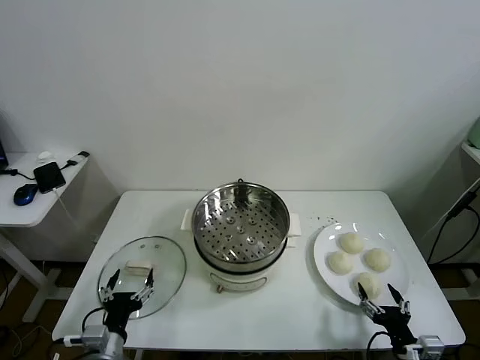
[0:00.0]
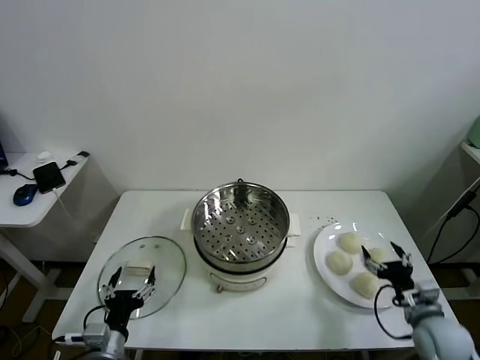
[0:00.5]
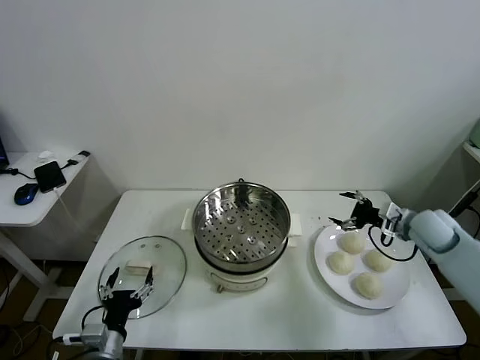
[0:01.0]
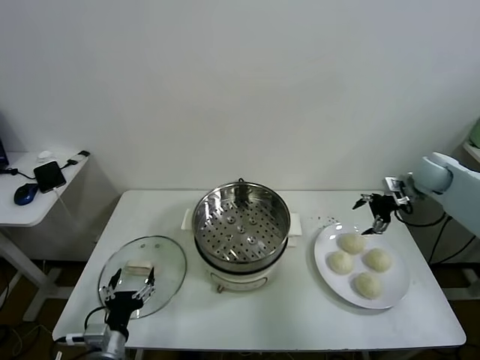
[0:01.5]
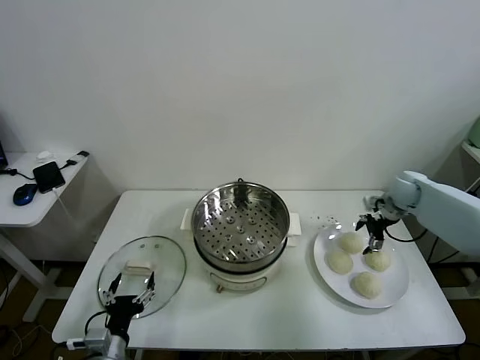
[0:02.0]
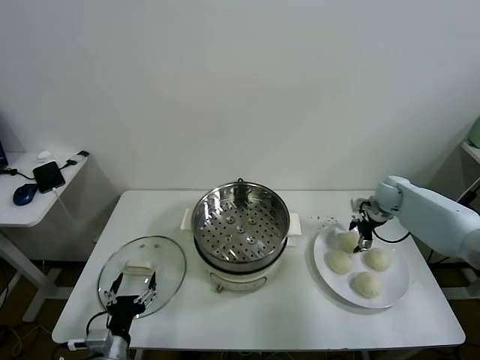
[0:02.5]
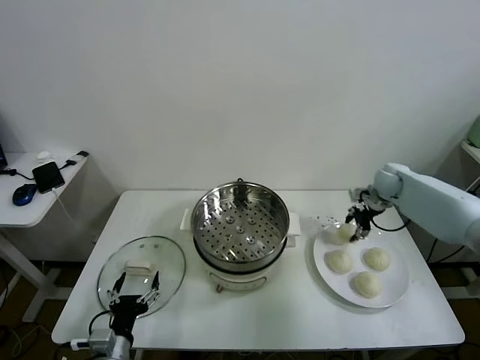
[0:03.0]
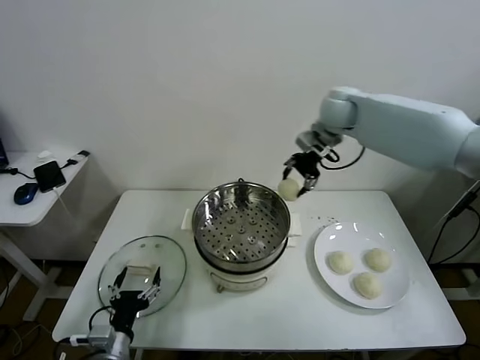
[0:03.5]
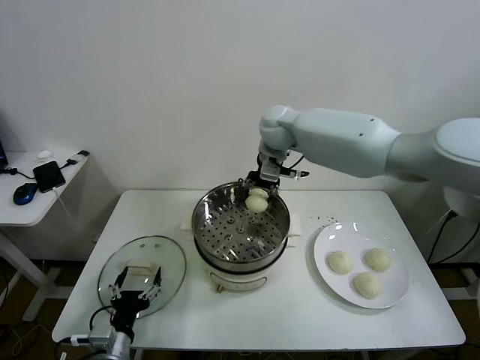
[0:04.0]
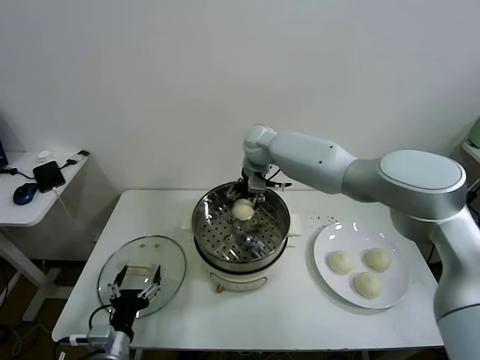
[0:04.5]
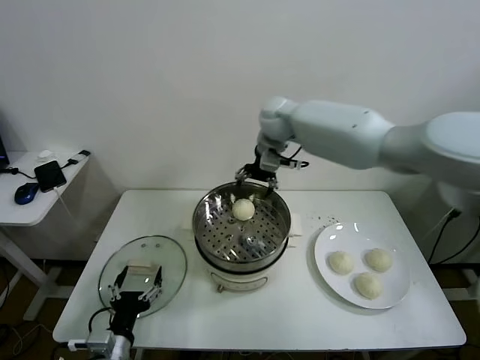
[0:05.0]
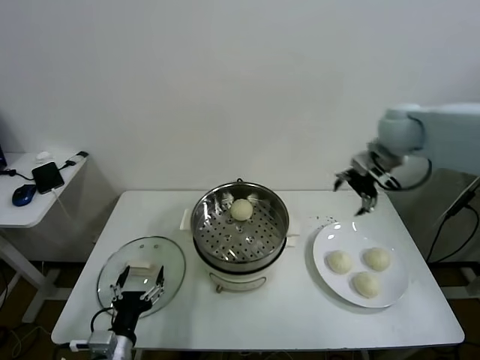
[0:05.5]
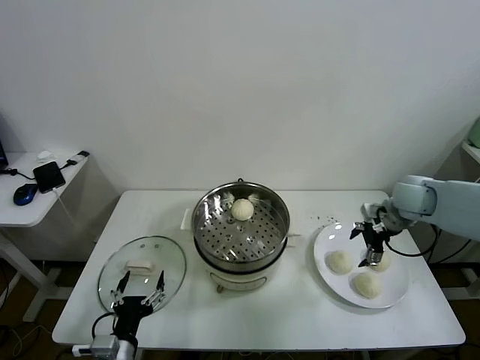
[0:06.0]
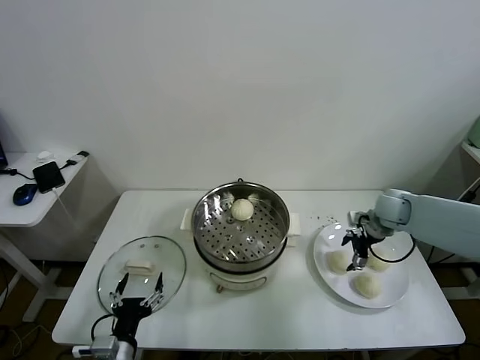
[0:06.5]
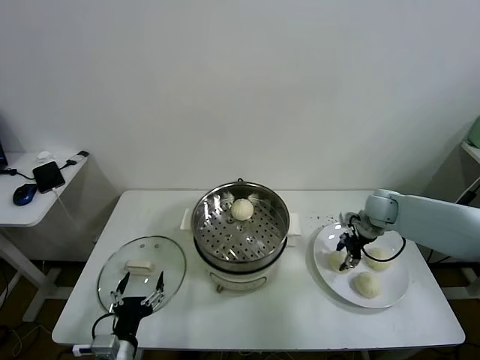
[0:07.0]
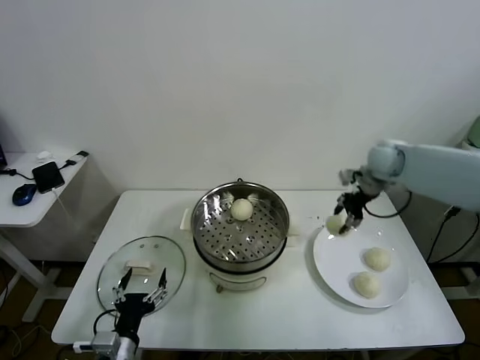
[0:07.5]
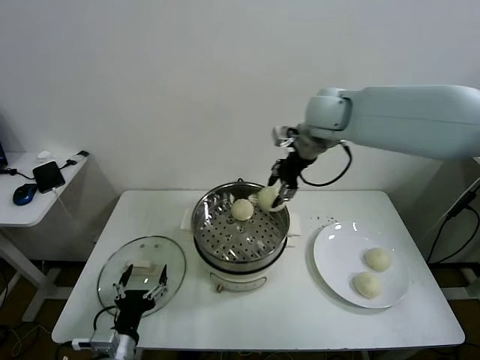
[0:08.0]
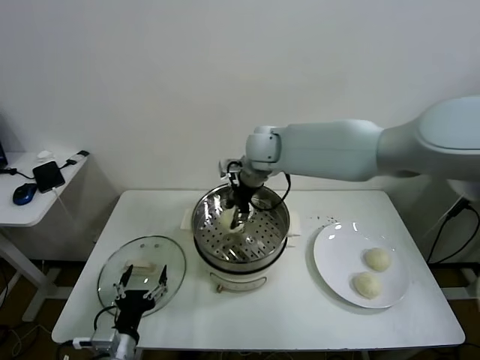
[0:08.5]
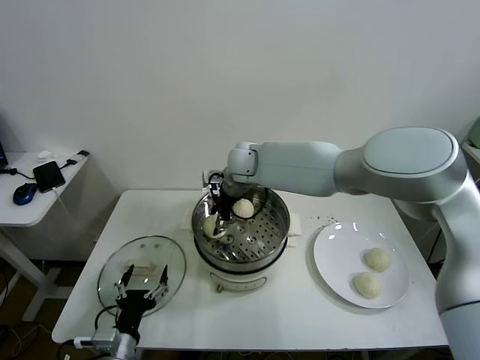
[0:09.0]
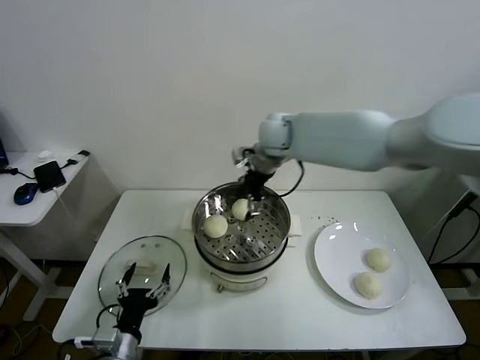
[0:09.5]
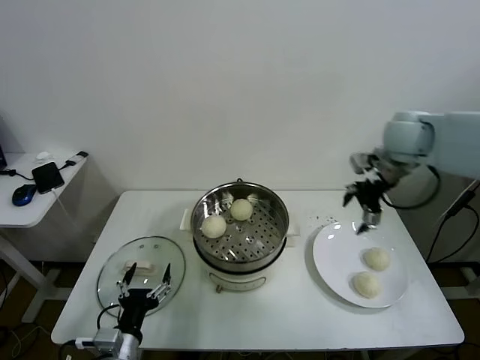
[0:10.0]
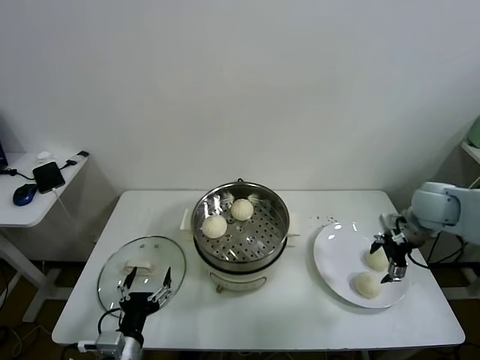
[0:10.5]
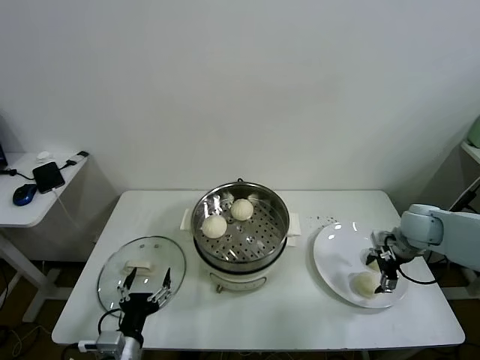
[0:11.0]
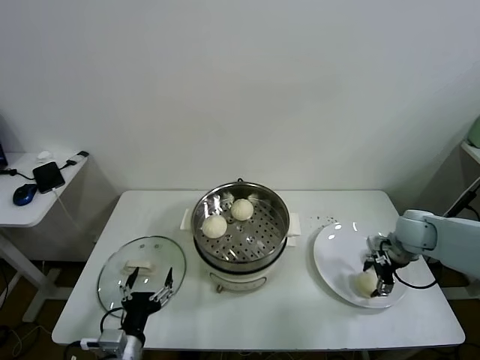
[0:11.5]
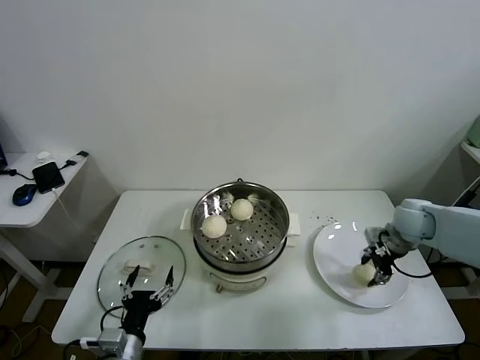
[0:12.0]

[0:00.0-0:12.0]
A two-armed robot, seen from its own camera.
Task of the whole recording: take steamed baozi put them in steamer.
Step, 0:00.0 to 0:02.5: Grasp the baozi in the plate with right gripper.
Step, 0:03.0 to 0:04.5: Place the baozi on the steamer with right gripper.
Step, 0:05.0 to 0:06.5: Grasp the baozi in the plate with right gripper.
Step, 0:07.0 to 0:09.0: Place the baozi on the steamer with right gripper.
Step, 0:09.5 to 0:11.5: Grasp the baozi in the plate with right gripper.
0:02.0 to 0:04.0: The right gripper is displaced to the left and upward by some 40 cm, and closes up.
0:04.0 to 0:06.0: The right gripper goes about 30 cm to the right, and opens.
0:06.0 to 0:08.0: The right gripper heads to the left and upward, covering some 30 cm, and closes its fingers.
0:08.0 to 0:10.0: The right gripper shifts approximately 20 cm to the right, and opens up.
0:10.0 to 0:12.0: The right gripper shifts approximately 20 cm downward, and closes.

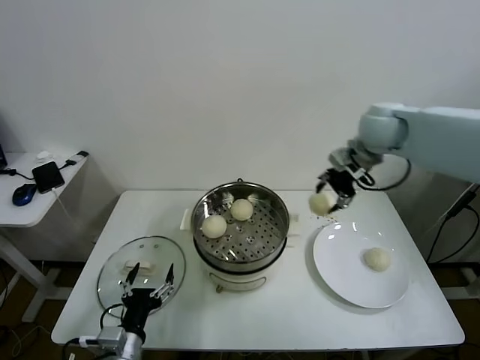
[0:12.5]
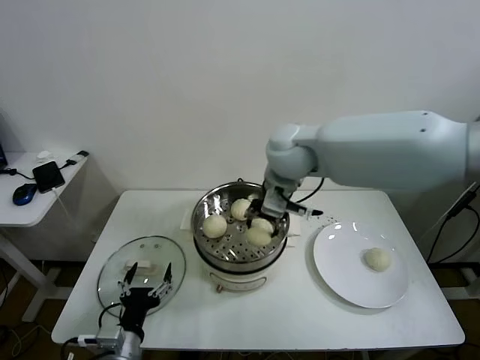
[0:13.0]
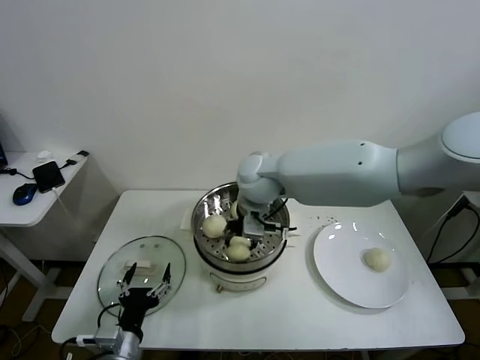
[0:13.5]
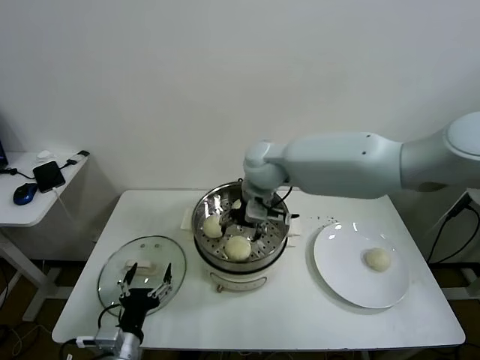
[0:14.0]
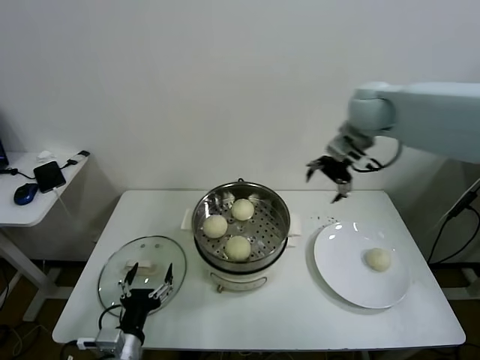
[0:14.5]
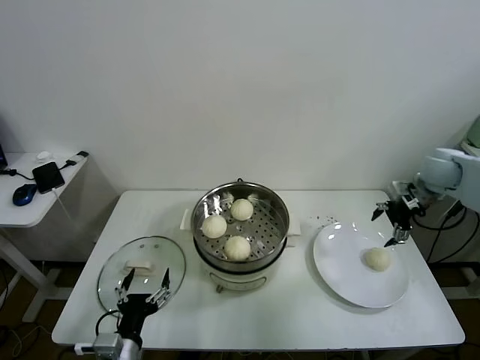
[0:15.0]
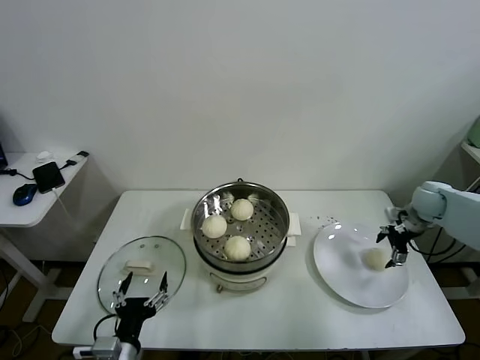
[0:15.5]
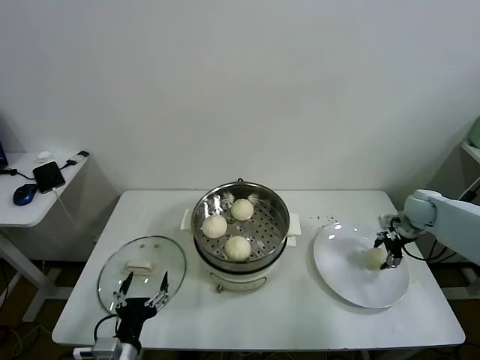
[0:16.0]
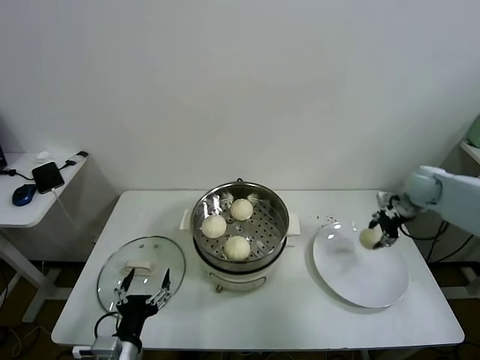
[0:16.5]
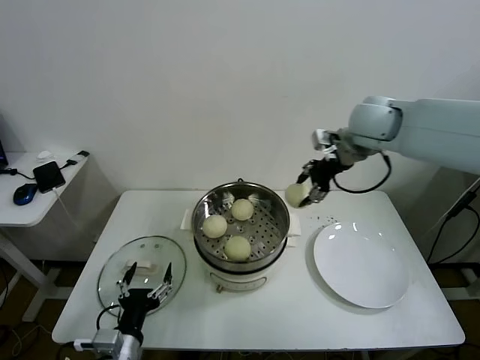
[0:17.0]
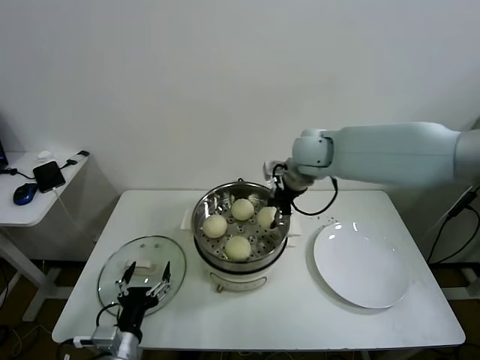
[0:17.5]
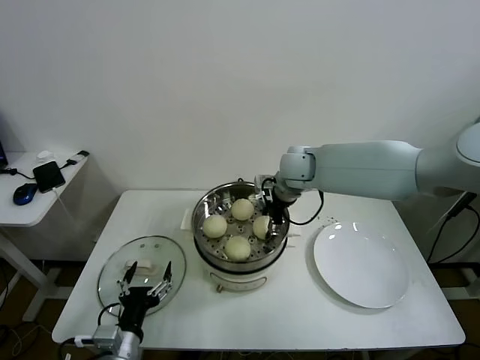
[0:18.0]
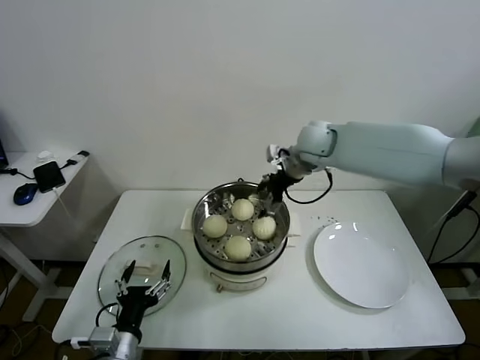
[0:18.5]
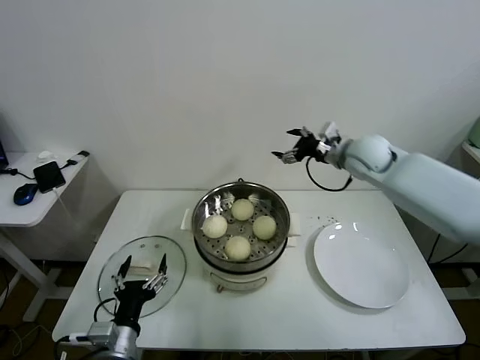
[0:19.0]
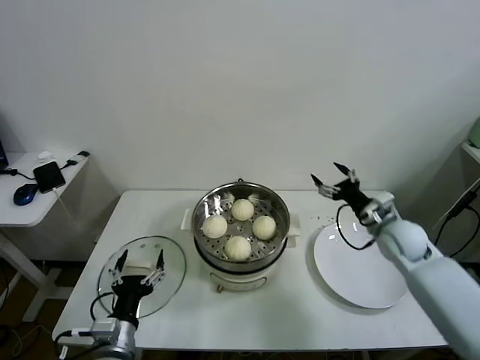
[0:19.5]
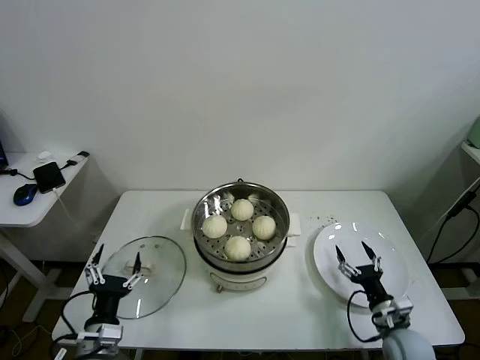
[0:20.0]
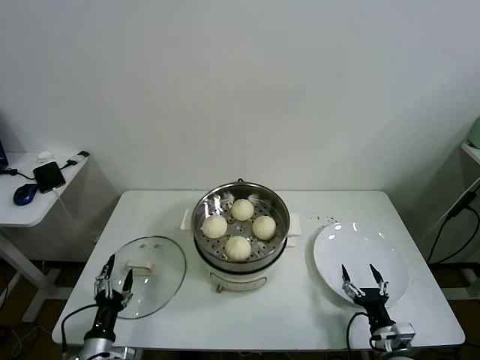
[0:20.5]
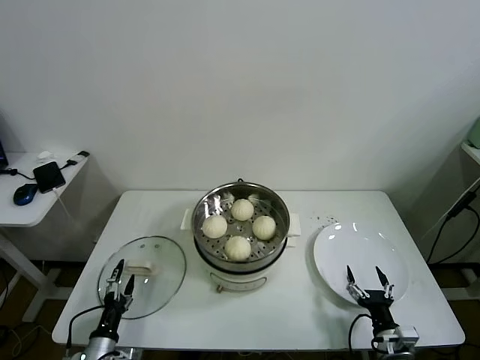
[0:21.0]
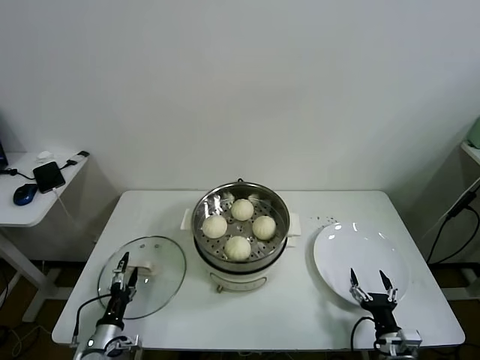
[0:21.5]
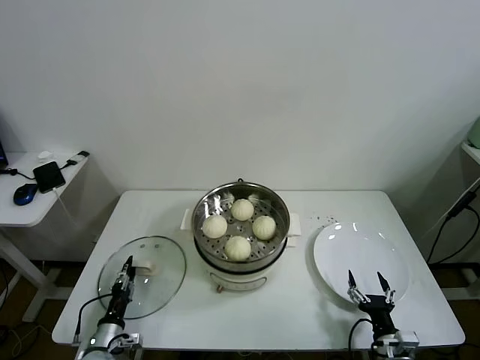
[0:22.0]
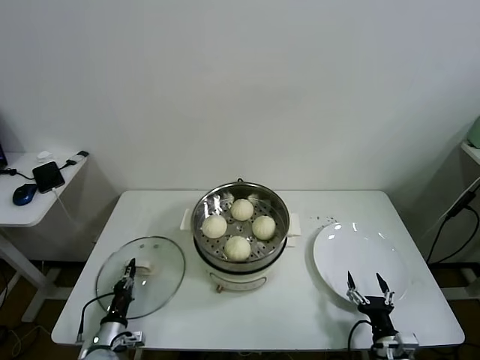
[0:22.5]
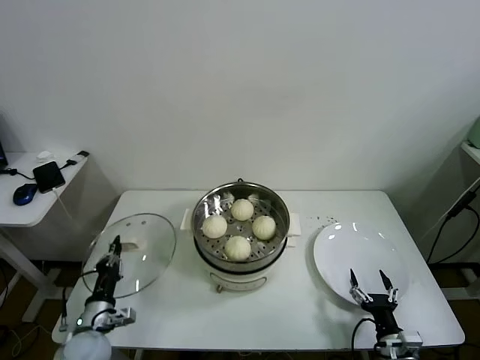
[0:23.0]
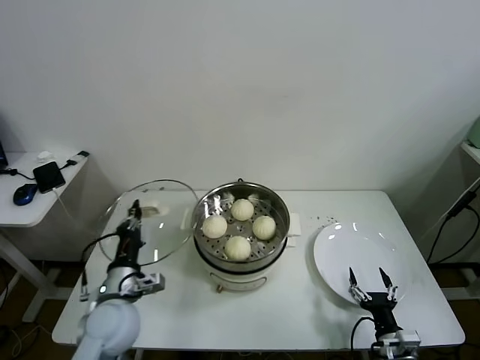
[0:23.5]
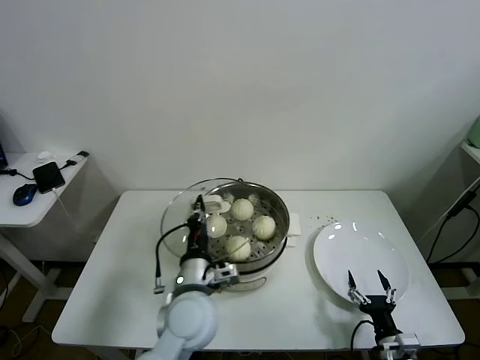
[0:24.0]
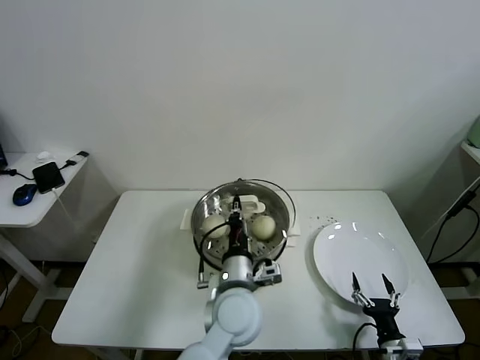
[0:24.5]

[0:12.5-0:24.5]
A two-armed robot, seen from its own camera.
Task of the whole recording: take steamed baozi put them in steamer.
Step, 0:14.0 to 0:16.0: Grasp the baozi in the plate with right gripper.
Step, 0:16.5 to 0:18.0: Place the baozi on the steamer with right gripper.
Step, 0:18.5 to 0:22.0: Grasp the pot lid with left gripper.
0:12.5 to 0:14.5: The right gripper goes to the left and returns, roughly 20 cm each way, and opens its fingers.
0:14.5 to 0:16.5: The right gripper shifts about 25 cm downward and to the right, and closes its fingers.
0:16.5 to 0:18.5: The right gripper shifts some 25 cm to the left, and opens up.
0:18.5 to 0:20.5: The left gripper goes about 15 cm downward and to the left; the right gripper travels backward, downward and to the right by approximately 60 cm.
0:20.5 to 0:22.5: The left gripper is displaced downward and forward by about 10 cm, and closes up.
0:22.5 to 0:24.5: The left gripper travels to the right and upward by roughly 40 cm.

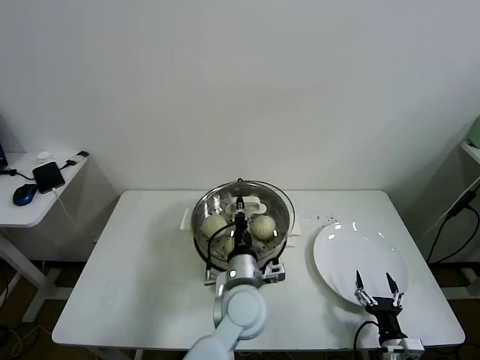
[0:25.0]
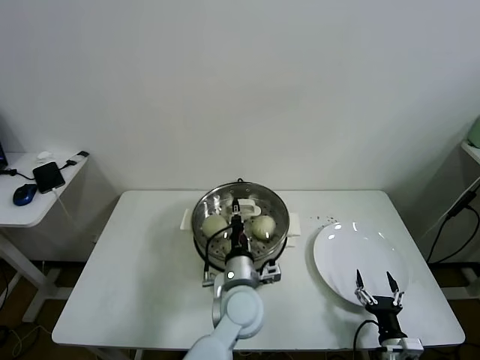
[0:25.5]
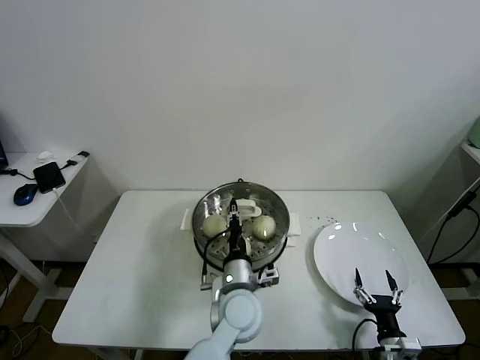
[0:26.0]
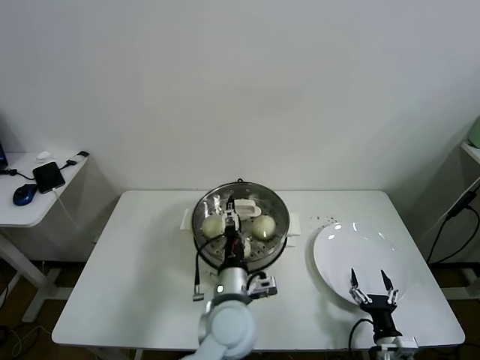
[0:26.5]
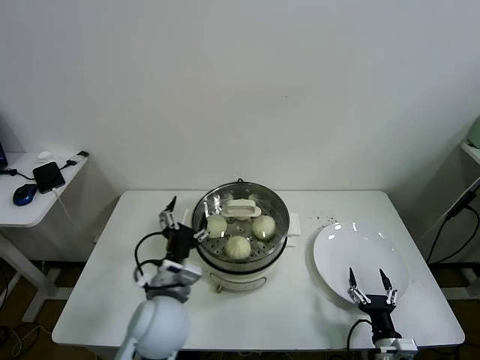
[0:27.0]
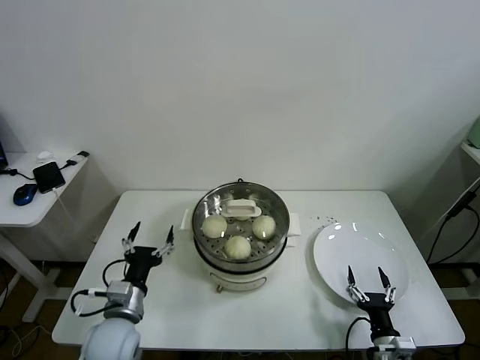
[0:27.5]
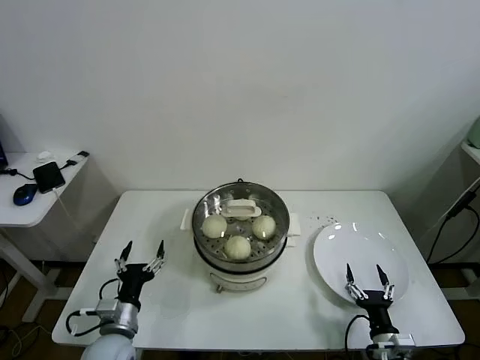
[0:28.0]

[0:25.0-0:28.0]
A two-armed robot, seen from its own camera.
Task of the whole recording: take steamed baozi put them in steamer.
0:25.0 to 0:26.5: The left gripper opens.
0:26.5 to 0:28.0: The left gripper travels to the left by about 25 cm.
